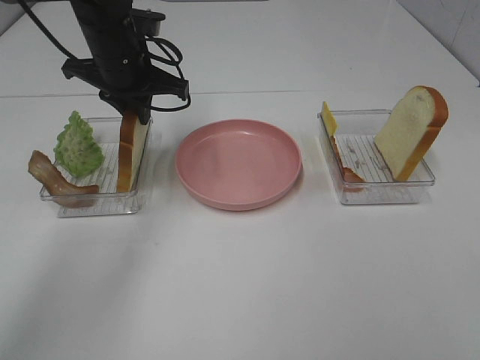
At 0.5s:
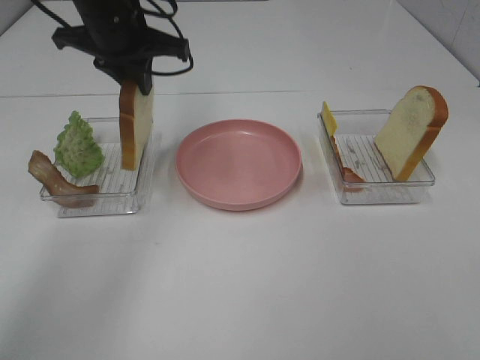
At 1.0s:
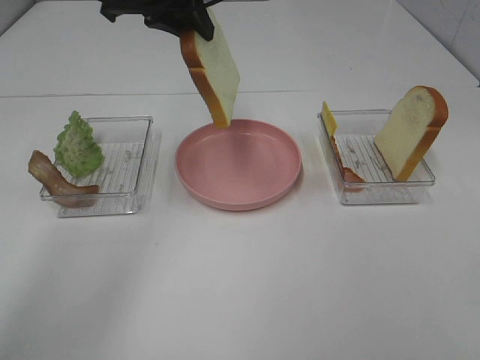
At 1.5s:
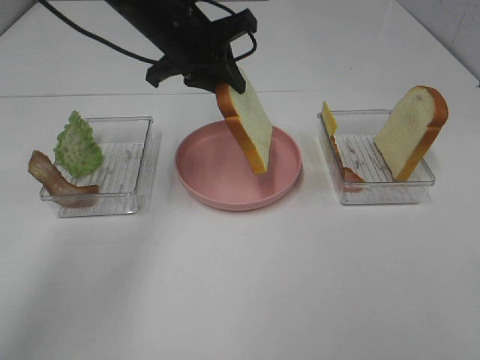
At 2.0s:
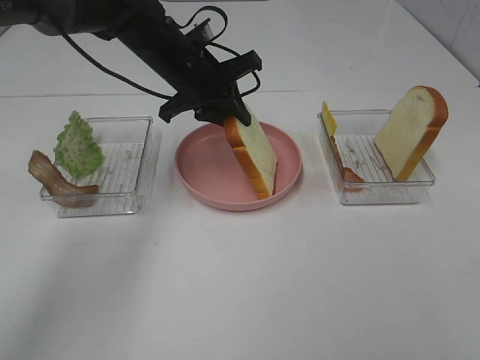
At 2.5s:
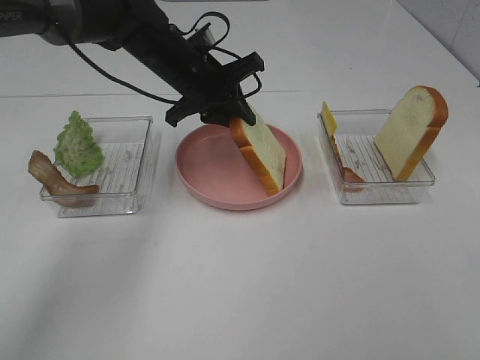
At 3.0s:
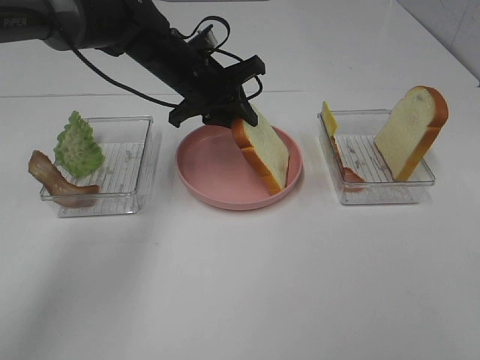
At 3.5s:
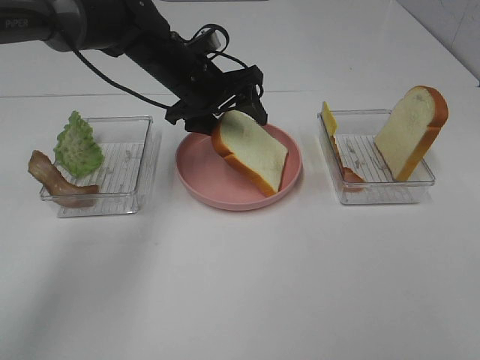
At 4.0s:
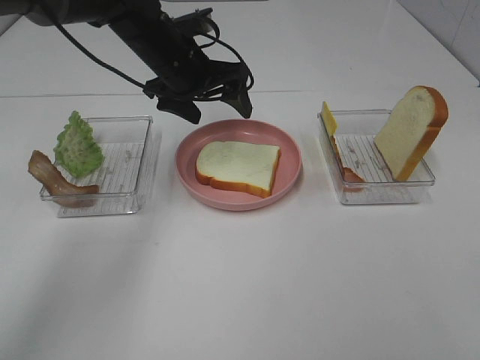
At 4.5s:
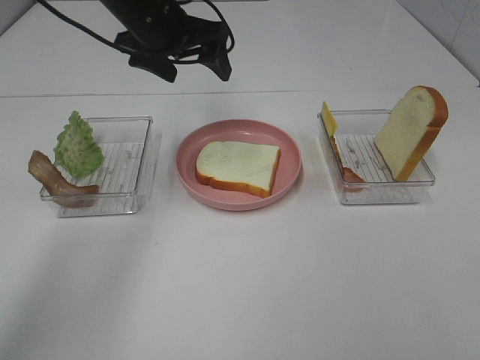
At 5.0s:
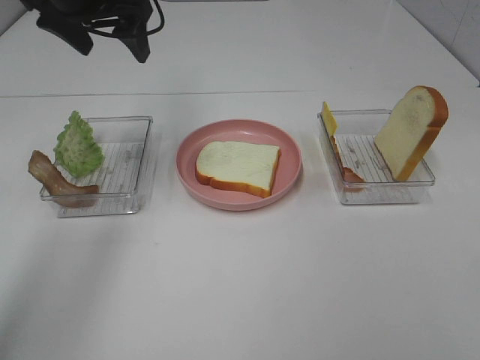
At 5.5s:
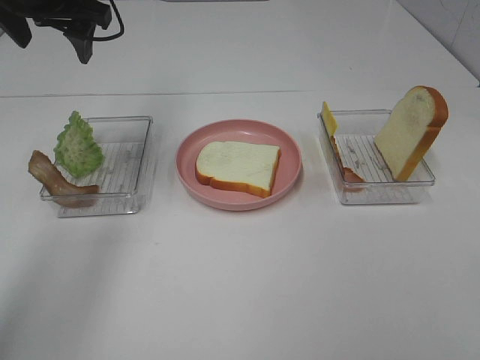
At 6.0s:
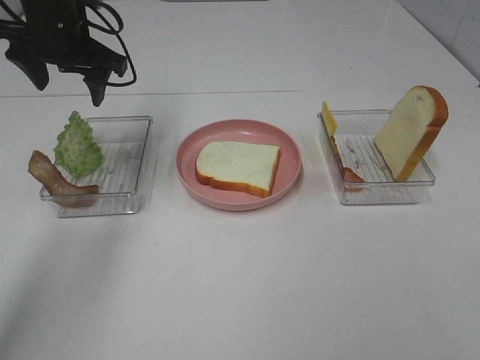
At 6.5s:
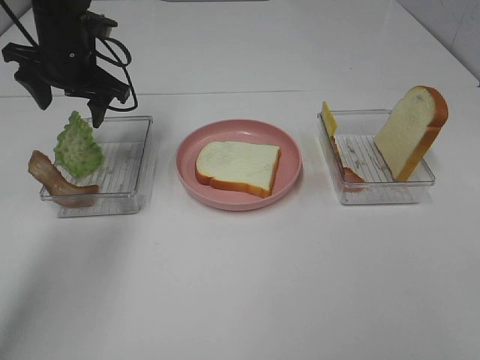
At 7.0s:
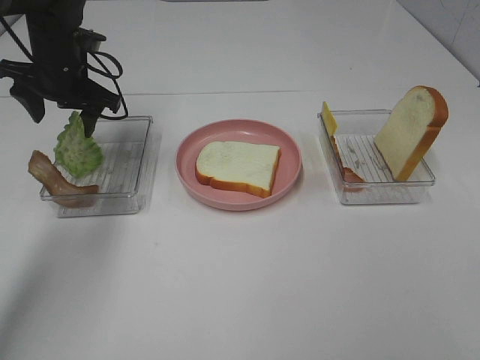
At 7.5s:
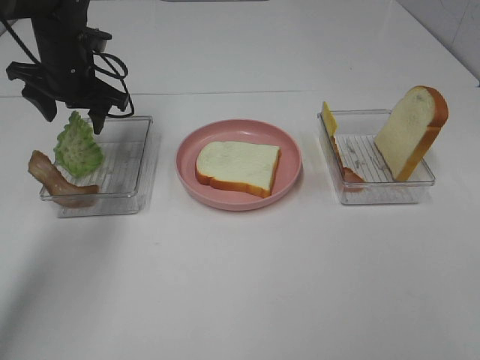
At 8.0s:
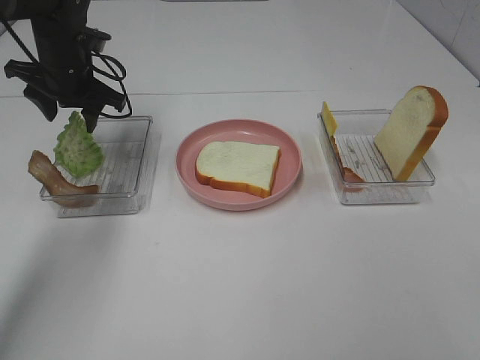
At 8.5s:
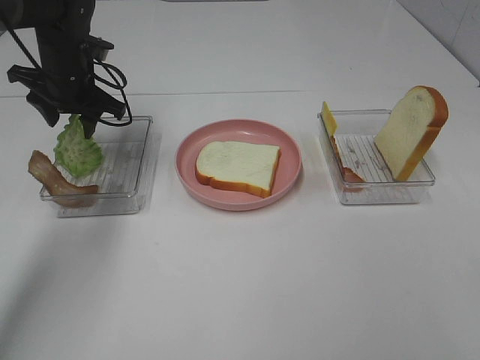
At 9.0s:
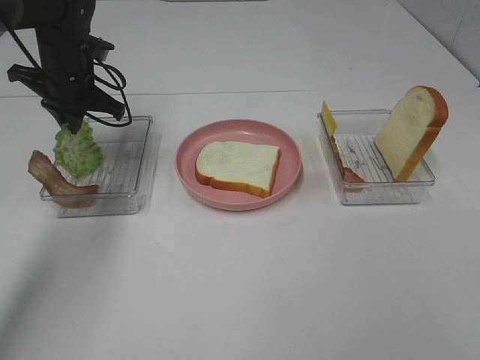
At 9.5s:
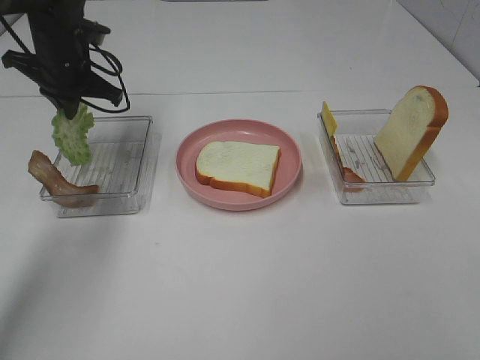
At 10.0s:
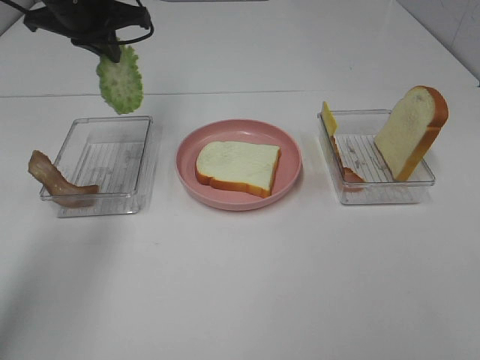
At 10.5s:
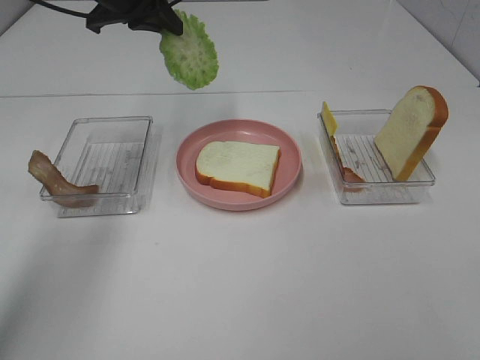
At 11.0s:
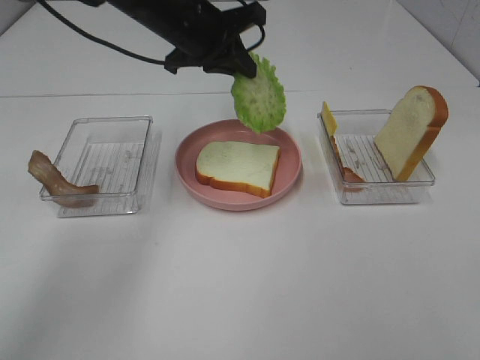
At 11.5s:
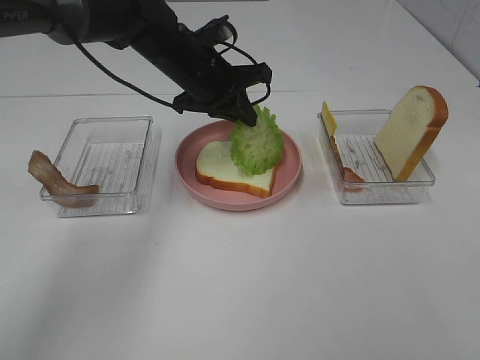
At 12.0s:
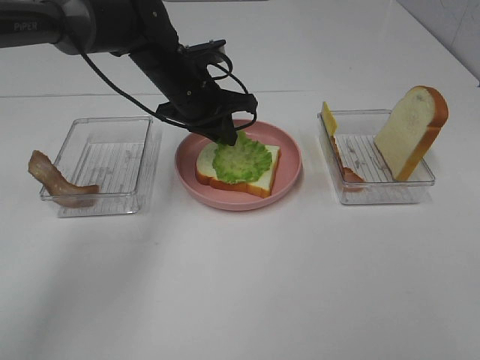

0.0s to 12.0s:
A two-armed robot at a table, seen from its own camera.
Task of the whole recording: Make sandwiches.
Step, 0.0s to 4.0s: Left hand:place the bread slice on the plate.
Step, 4.5s to 9.5s: Left hand:grab the lettuce slice.
0.0s to 2.0s: The left gripper heads to the right, covering approximately 5 cm, and reaches some 10 cm upward, then returns.
2.0s to 4.0s: The left gripper opens its fingers.
4.0s to 6.0s: The left gripper moves to the left, roughly 10 cm.
6.0s to 8.0s: The left gripper moves downward, some 5 cm.
8.0s to 10.0s: The left gripper moves upward, some 10 cm, and closes up.
10.0s to 12.0s: The left gripper is displaced to the right and downward by roughly 15 cm.

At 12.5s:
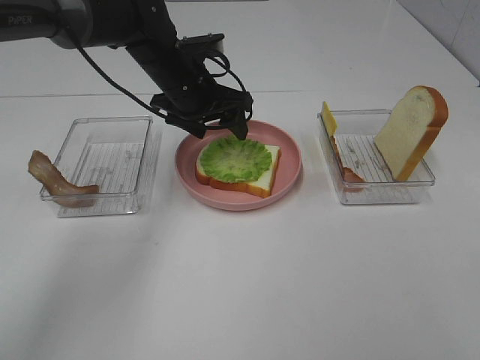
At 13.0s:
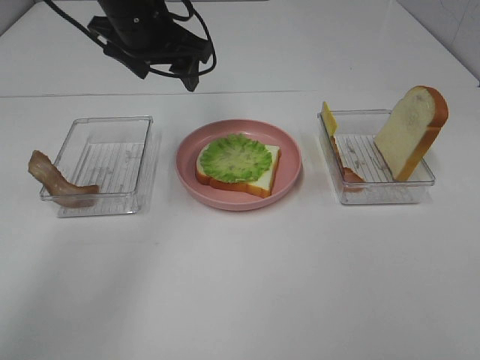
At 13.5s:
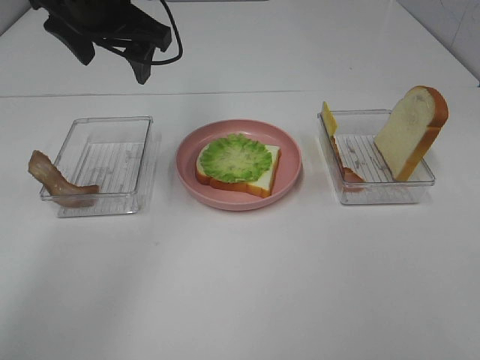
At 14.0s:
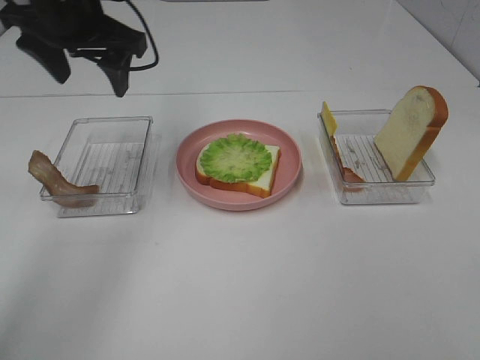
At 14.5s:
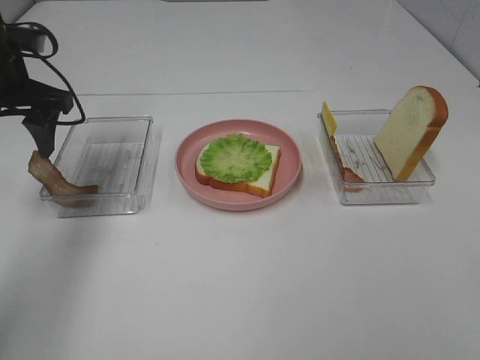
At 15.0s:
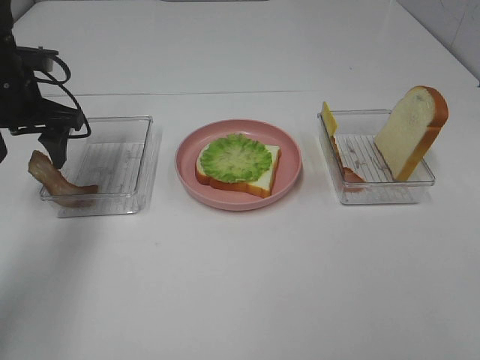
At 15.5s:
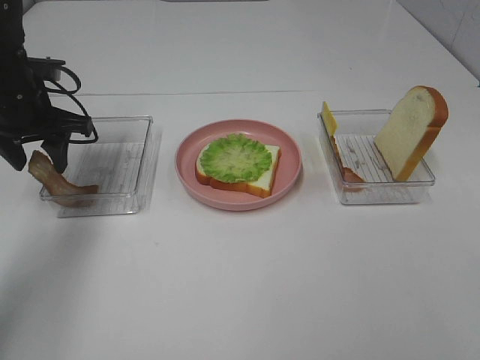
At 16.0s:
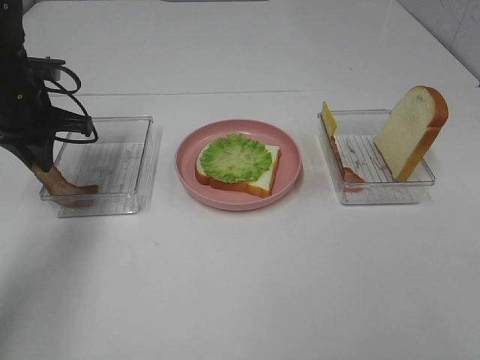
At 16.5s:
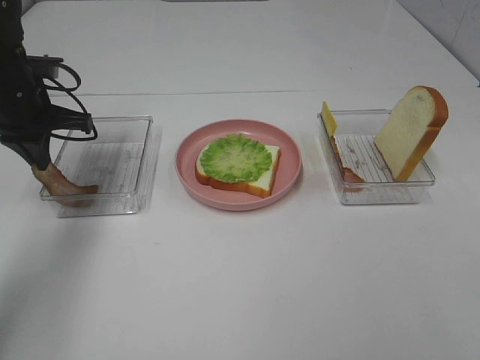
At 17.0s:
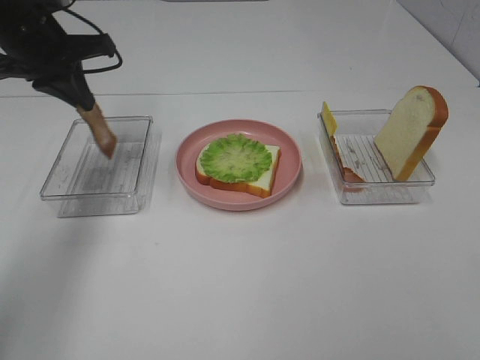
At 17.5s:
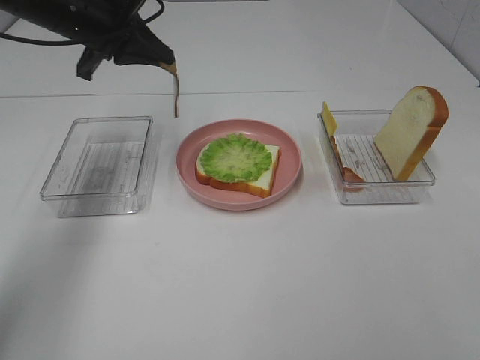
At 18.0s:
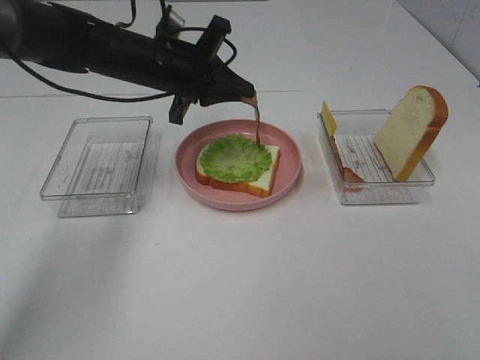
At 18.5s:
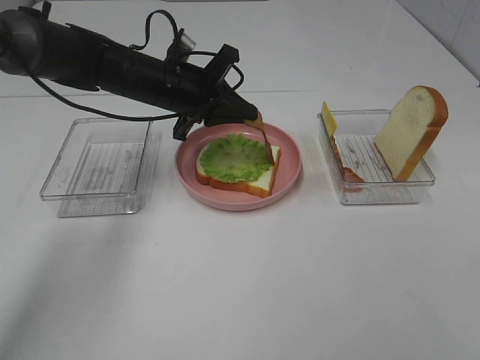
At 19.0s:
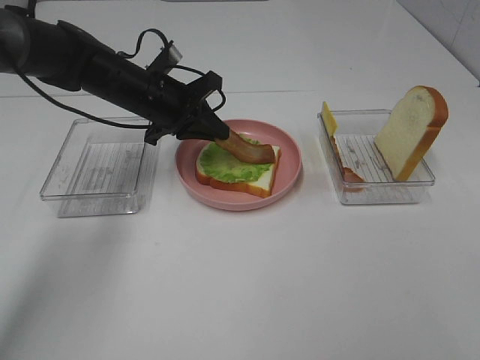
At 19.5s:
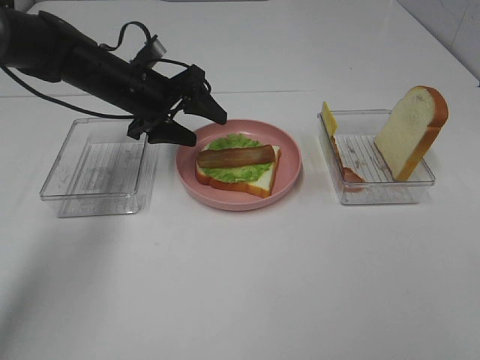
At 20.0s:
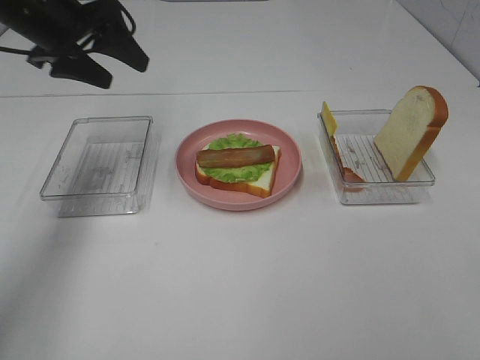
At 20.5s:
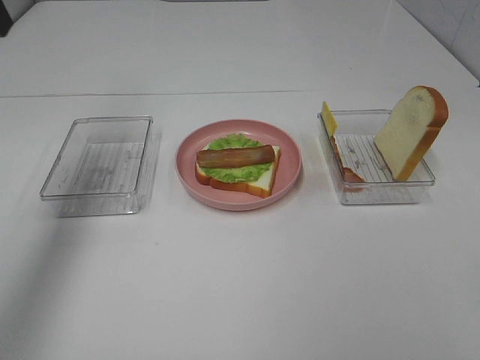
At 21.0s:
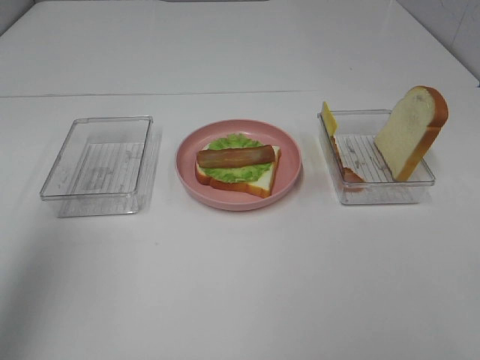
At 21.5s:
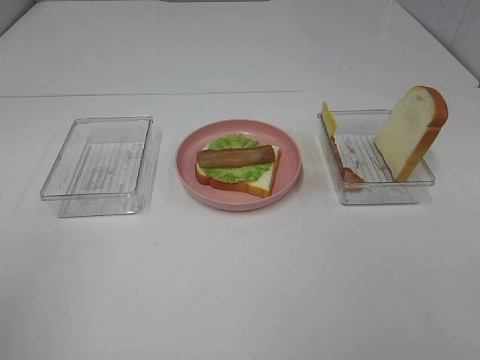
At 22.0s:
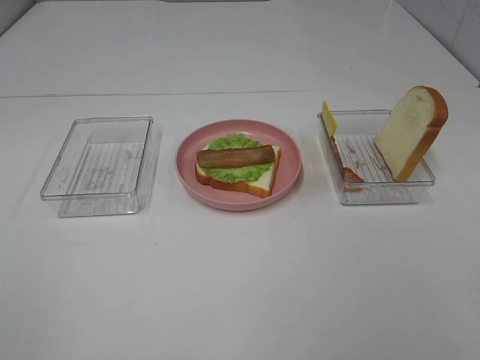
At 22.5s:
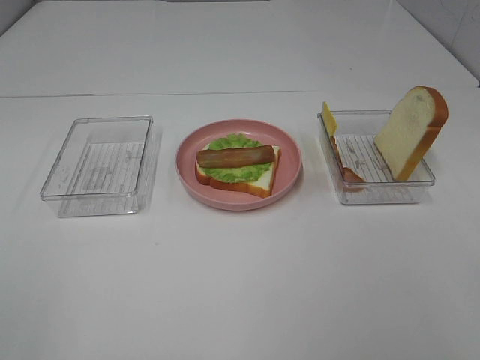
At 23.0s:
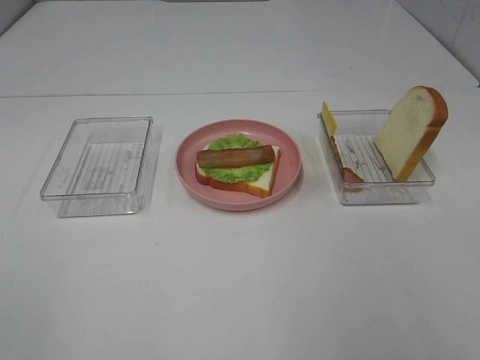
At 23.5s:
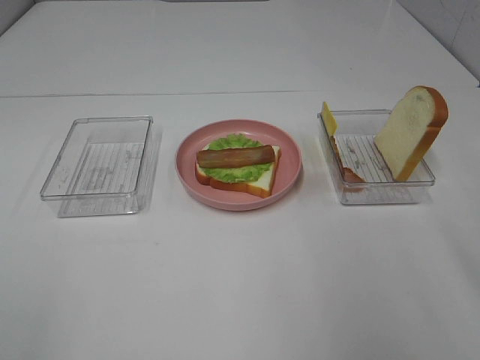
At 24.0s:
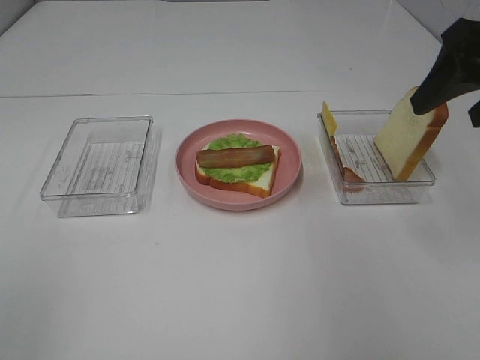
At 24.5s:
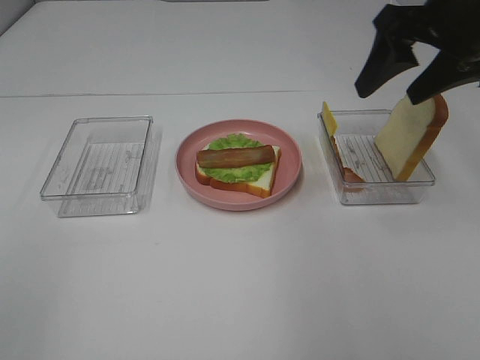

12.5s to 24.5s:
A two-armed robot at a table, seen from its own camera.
Task of the whole recording: Make sandwiches.
Step, 13.0s to 16.0s: Left hand:grab the bacon.
Step, 16.5s to 19.5s: Left hand:place bacon on lettuce slice.
12.5s to 14.5s: The left gripper moves to the left, some 20 cm.
14.5s to 16.5s: The left gripper changes place by roughly 5 cm, and closes up.
16.5s to 18.5s: The left gripper heads to the right, covering approximately 15 cm.
18.5s to 20.5s: The left gripper travels upward, to the left and backward by some 30 cm, and opens its fingers.
20.5s to 22.5s: The left gripper heads backward, covering roughly 35 cm.
22.5s to 24.5s: The right gripper is displaced forward by about 35 cm.

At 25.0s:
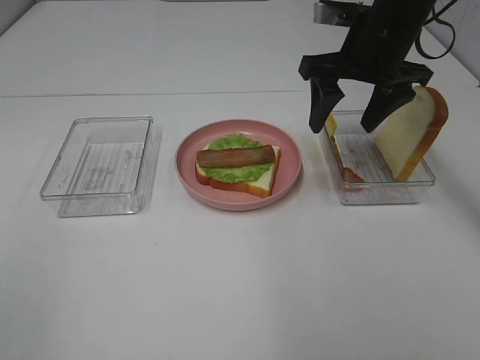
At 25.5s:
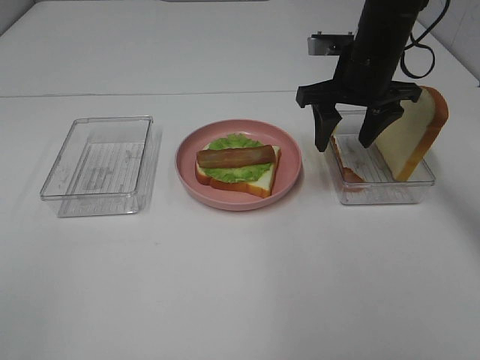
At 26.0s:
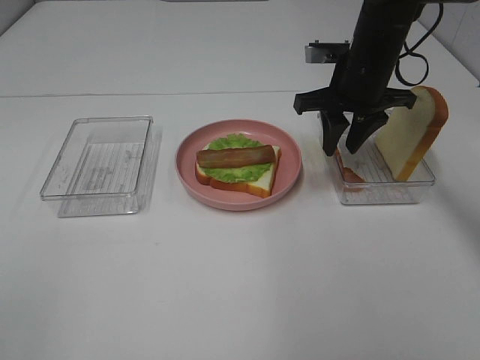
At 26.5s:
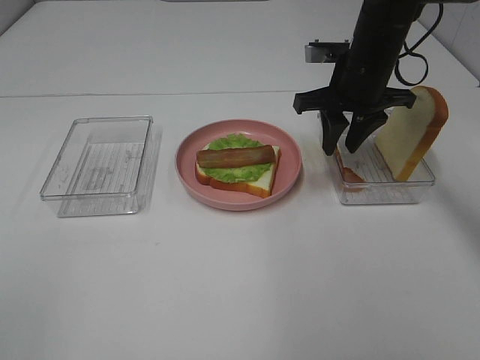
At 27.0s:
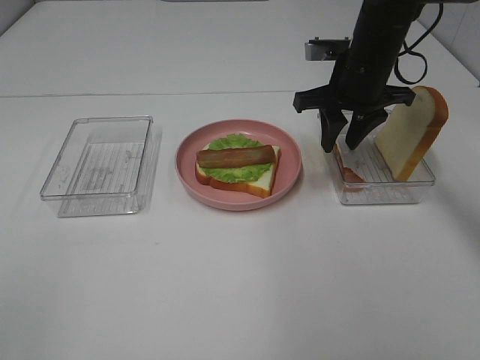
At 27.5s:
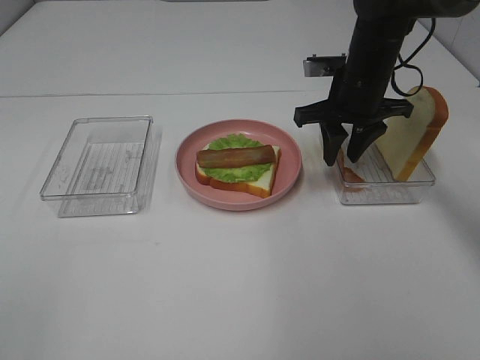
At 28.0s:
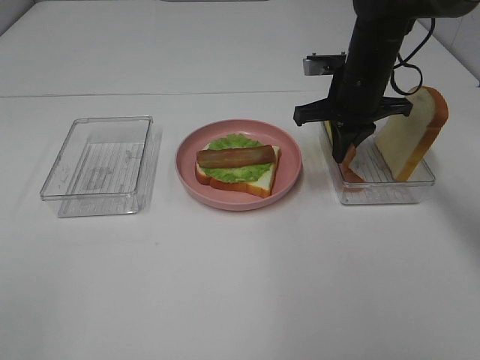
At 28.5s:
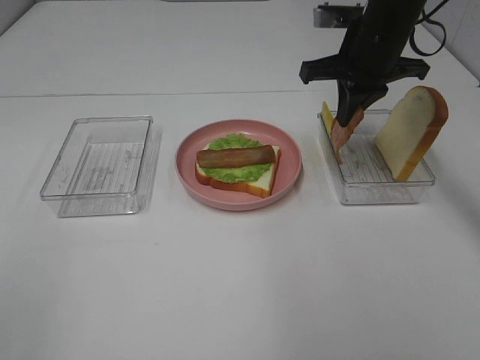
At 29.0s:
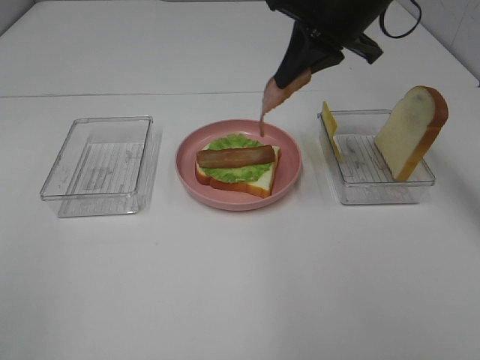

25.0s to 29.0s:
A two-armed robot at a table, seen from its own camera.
Task of the whole recording: Make sandwiches.
Step, 25.0s to 28.0s: Right hand:grab the bacon.
25.0s to 27.0s: The right gripper goes approximately 5 cm downward, and closes up.
27.0s to 29.0s: The right gripper goes some 10 cm upward, and closes its fingers.
